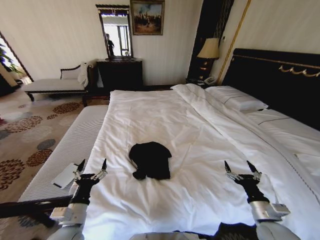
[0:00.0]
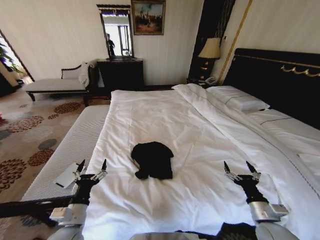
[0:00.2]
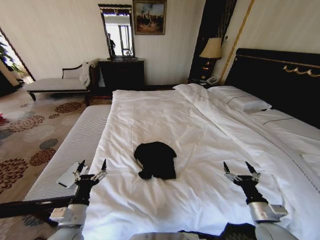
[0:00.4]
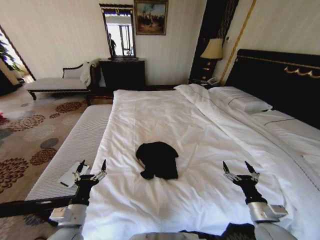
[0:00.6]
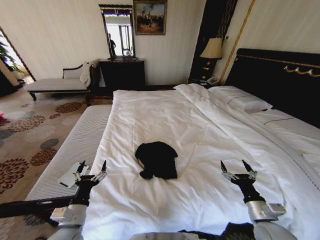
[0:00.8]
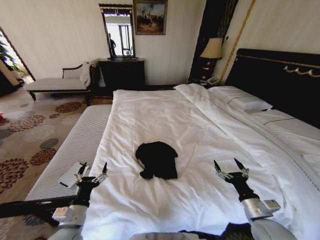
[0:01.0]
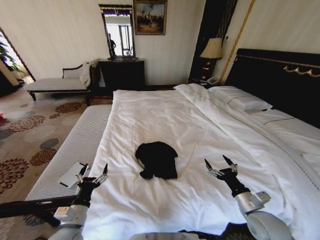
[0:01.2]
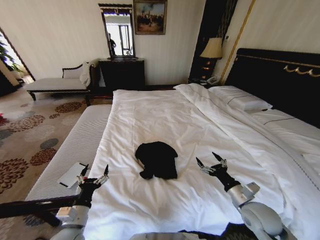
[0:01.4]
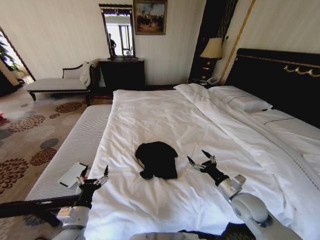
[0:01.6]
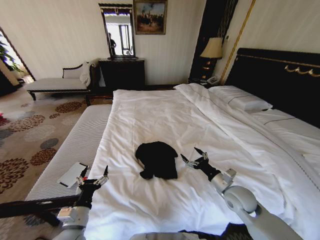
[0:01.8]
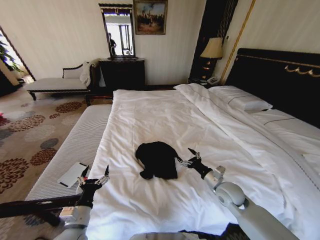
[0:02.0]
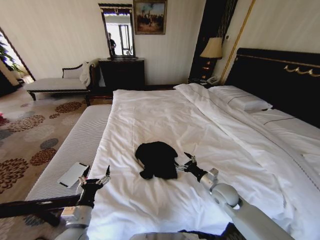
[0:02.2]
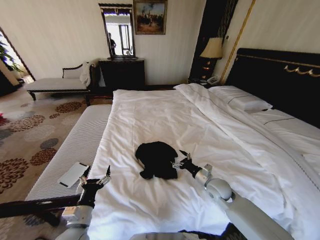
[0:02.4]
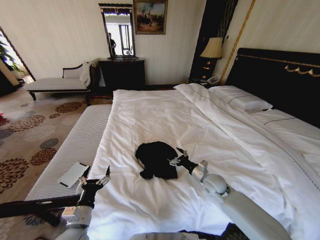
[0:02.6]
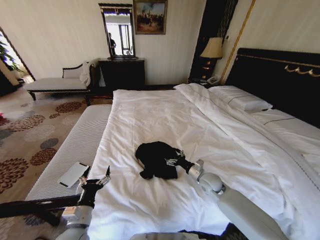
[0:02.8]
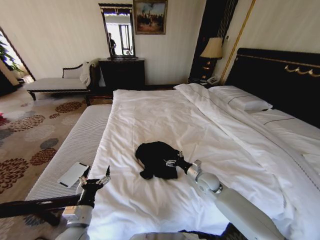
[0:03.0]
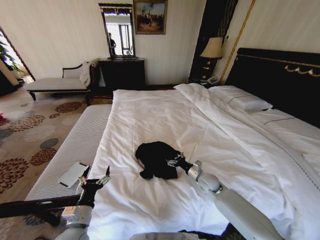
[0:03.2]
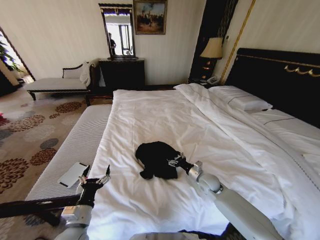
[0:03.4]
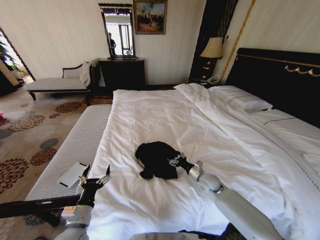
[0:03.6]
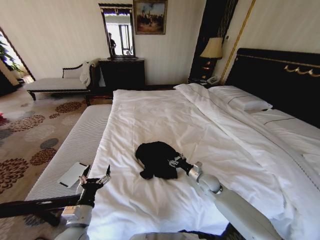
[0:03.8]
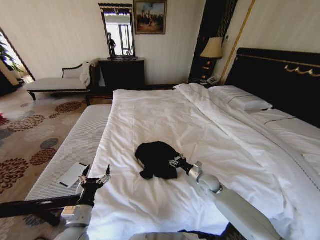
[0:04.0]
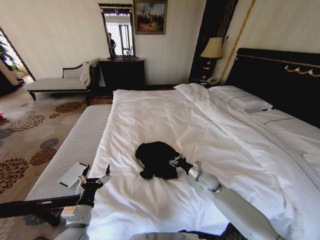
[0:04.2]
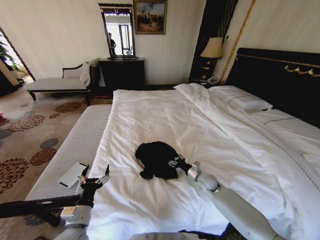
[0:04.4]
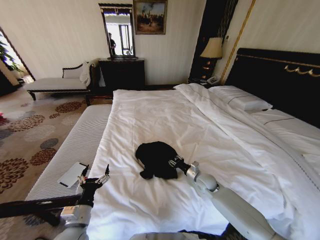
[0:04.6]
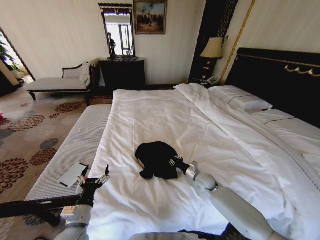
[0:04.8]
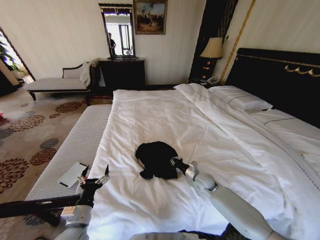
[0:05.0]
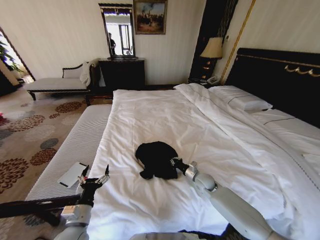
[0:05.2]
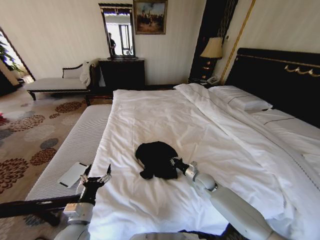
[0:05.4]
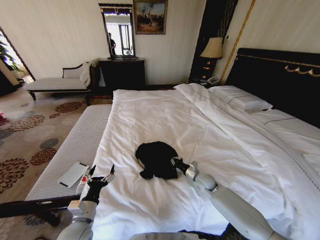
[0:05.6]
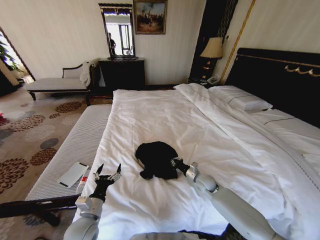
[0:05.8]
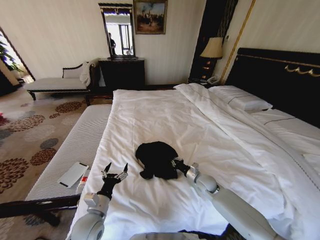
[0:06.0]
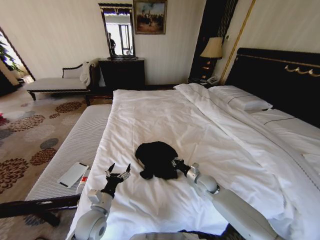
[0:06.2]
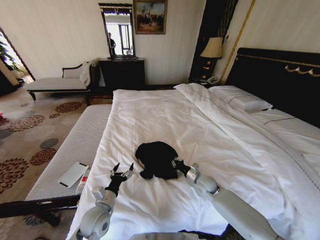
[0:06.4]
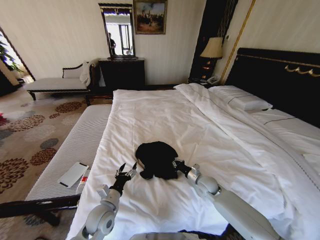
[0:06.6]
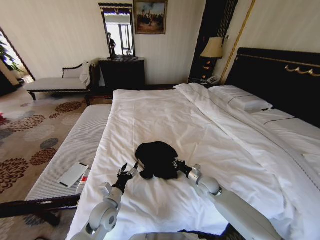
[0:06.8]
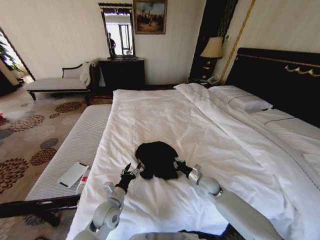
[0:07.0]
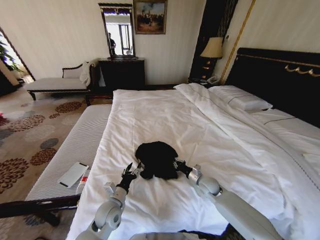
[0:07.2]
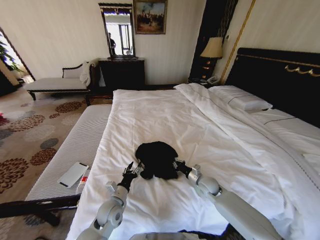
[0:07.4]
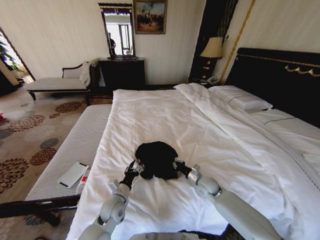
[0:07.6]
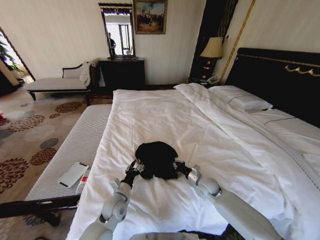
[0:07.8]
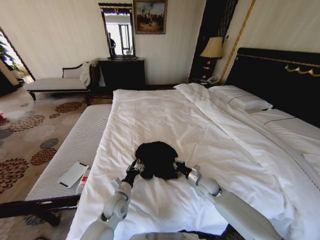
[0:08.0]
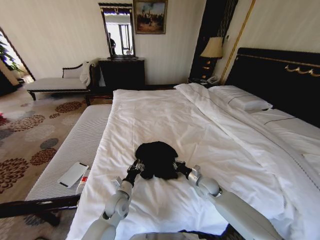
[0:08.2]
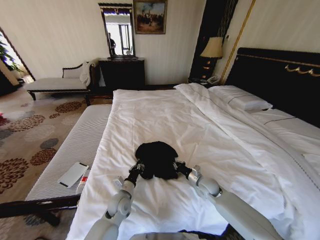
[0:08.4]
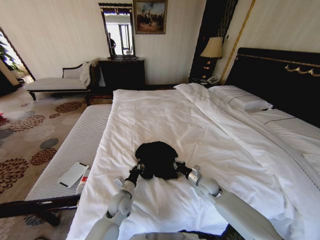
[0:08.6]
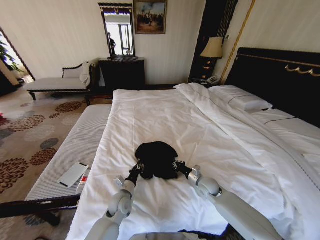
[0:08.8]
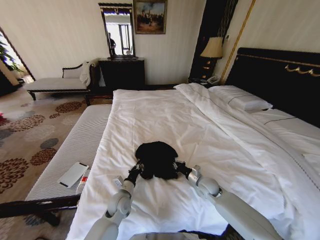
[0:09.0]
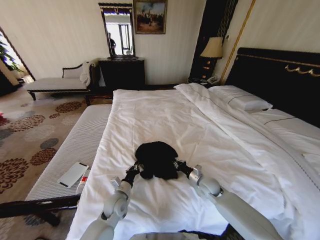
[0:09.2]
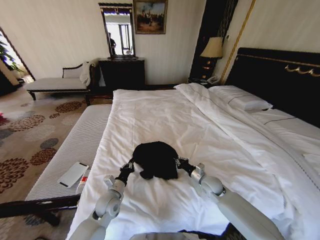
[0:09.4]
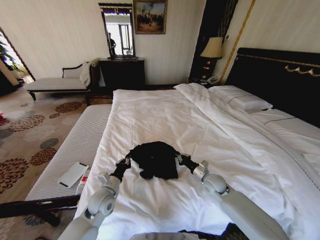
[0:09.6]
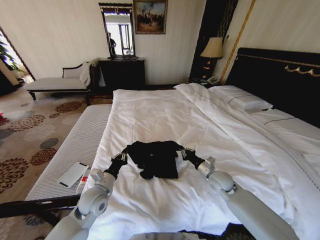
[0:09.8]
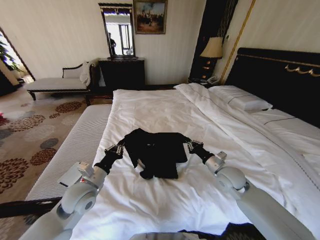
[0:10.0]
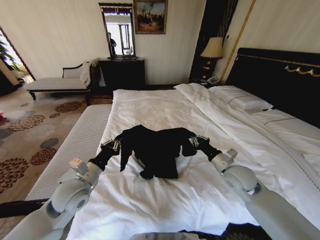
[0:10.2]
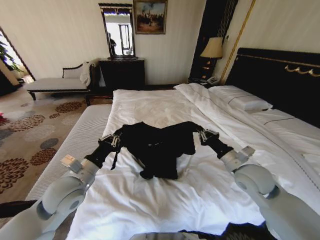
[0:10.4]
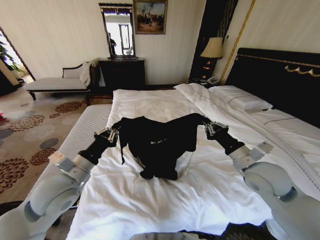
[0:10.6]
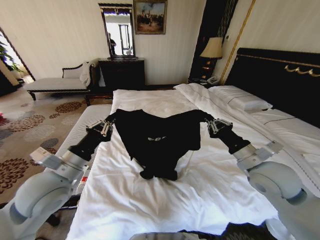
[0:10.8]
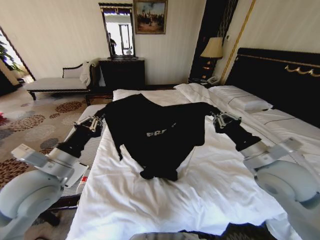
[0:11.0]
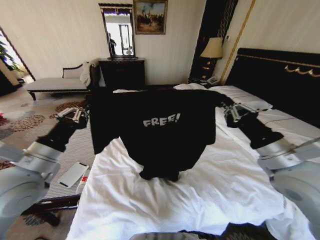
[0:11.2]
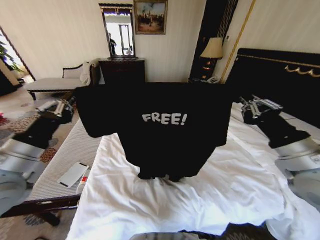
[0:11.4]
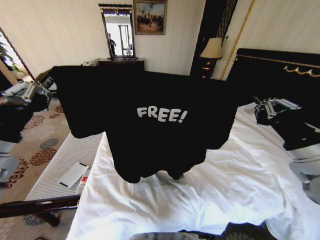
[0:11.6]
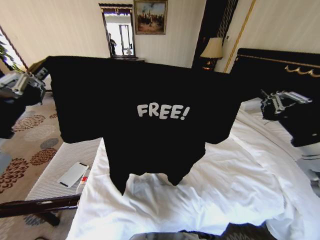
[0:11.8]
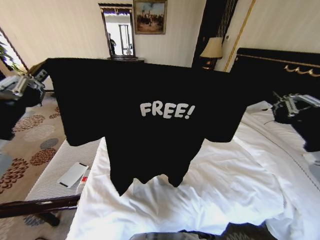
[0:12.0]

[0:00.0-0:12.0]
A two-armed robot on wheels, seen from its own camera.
Task of the whole recording: Fold the clothes on the bed.
0:00.0 to 0:01.6: The right gripper moves forward and to the left, some 10 cm.
0:01.6 to 0:03.0: The right gripper travels forward, to the left and downward by about 15 cm.
0:03.0 to 0:04.4: The grippers make only small movements.
0:04.4 to 0:06.0: The left gripper ends up about 5 cm from where it was, while the right gripper closes.
0:06.0 to 0:07.6: The left gripper travels forward and to the right by about 10 cm, and closes its fingers.
0:07.6 to 0:09.0: The left gripper closes.
0:09.0 to 0:10.4: The left gripper travels upward and to the left by roughly 25 cm; the right gripper travels upward by about 20 cm.
0:10.4 to 0:12.0: The right gripper travels upward and backward by some 20 cm. Meanwhile the left gripper travels upward and to the left by approximately 20 cm.

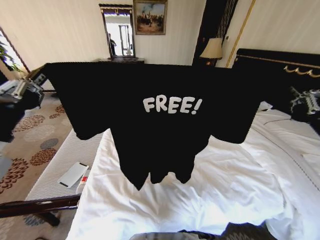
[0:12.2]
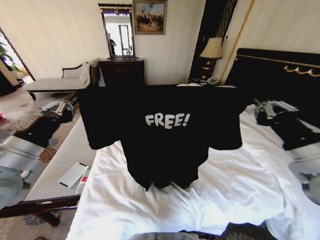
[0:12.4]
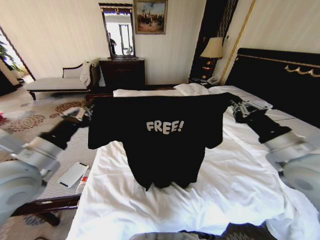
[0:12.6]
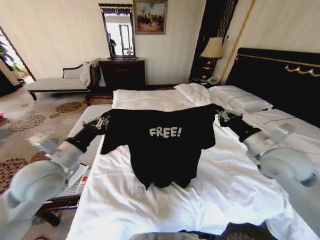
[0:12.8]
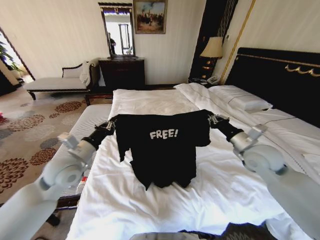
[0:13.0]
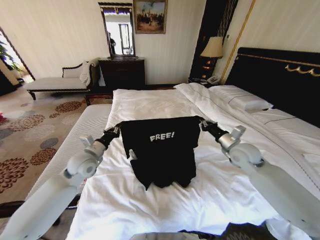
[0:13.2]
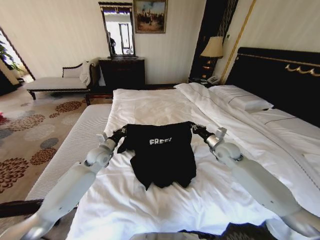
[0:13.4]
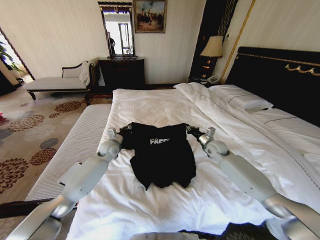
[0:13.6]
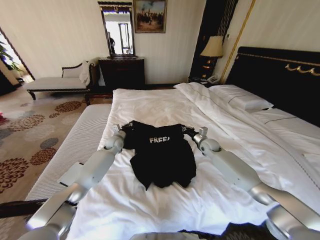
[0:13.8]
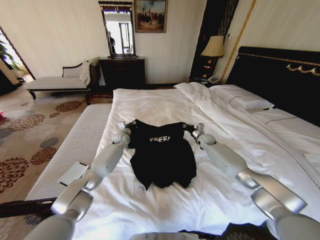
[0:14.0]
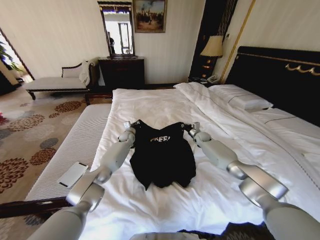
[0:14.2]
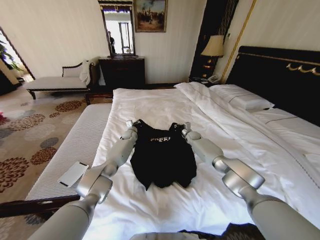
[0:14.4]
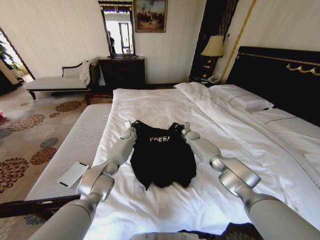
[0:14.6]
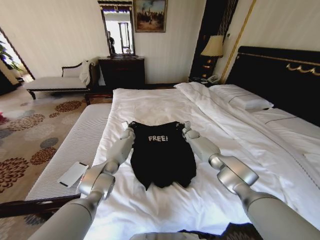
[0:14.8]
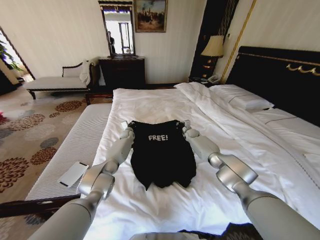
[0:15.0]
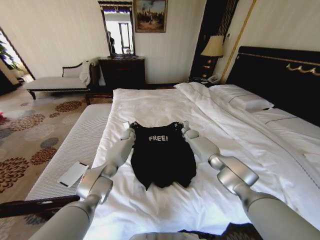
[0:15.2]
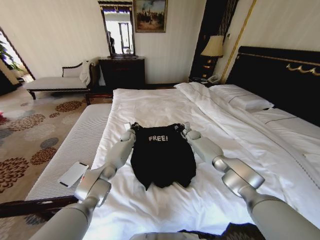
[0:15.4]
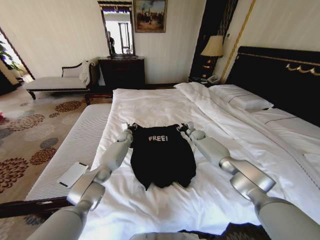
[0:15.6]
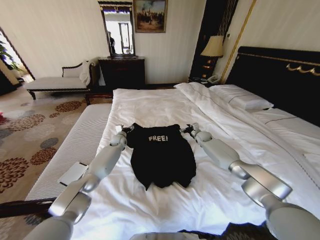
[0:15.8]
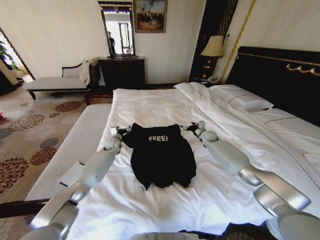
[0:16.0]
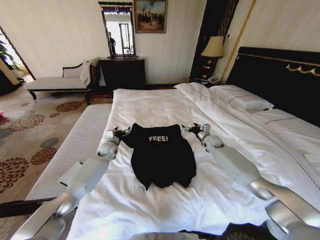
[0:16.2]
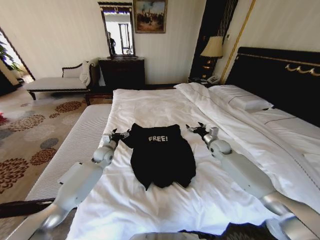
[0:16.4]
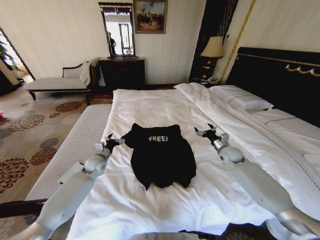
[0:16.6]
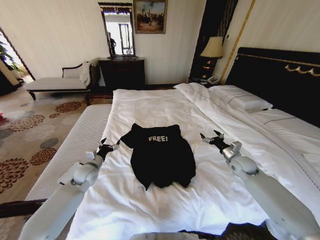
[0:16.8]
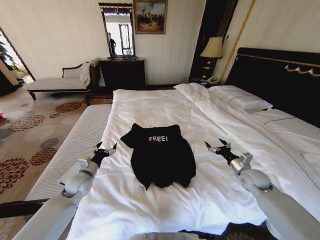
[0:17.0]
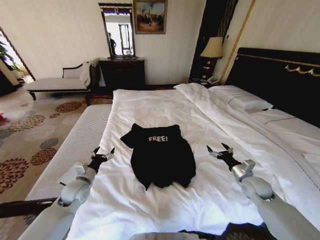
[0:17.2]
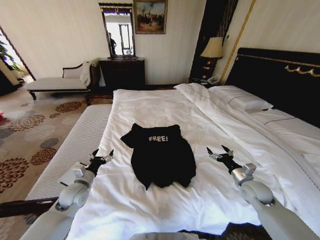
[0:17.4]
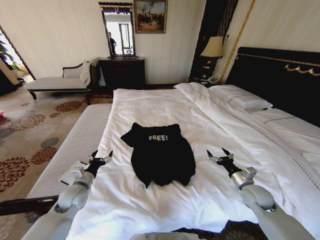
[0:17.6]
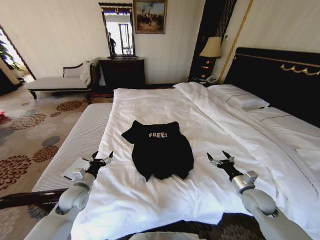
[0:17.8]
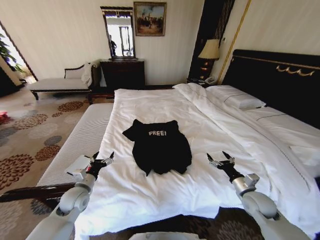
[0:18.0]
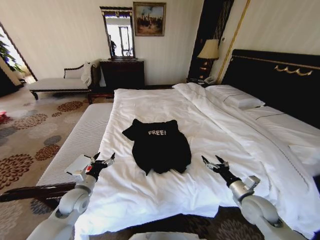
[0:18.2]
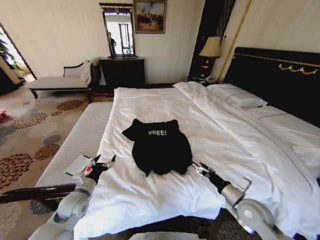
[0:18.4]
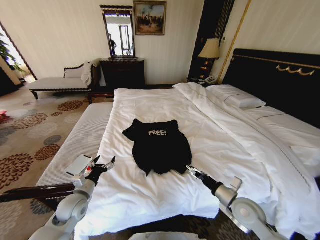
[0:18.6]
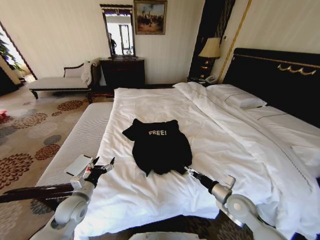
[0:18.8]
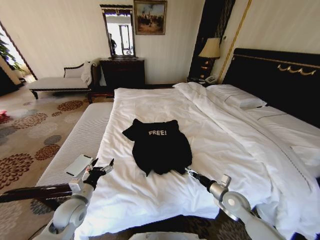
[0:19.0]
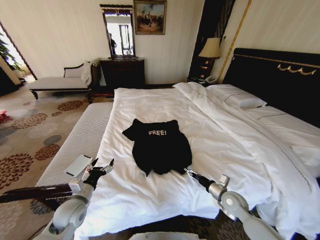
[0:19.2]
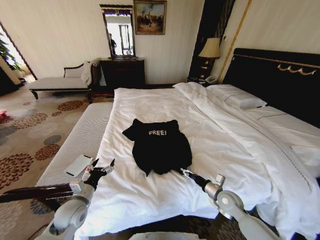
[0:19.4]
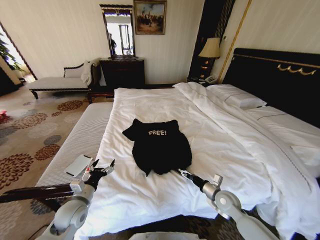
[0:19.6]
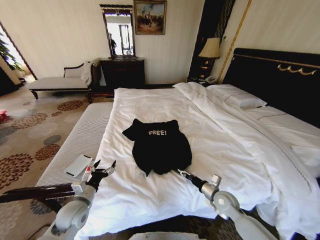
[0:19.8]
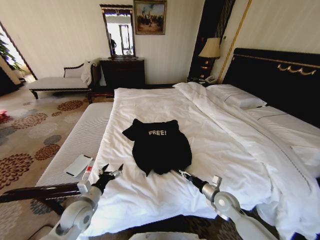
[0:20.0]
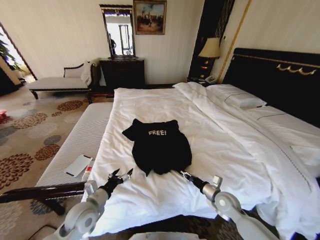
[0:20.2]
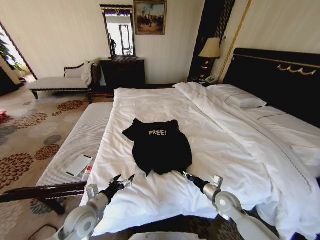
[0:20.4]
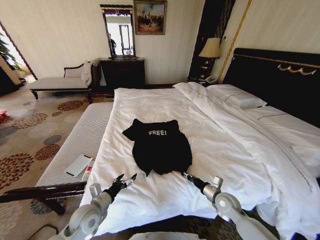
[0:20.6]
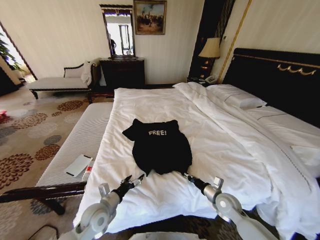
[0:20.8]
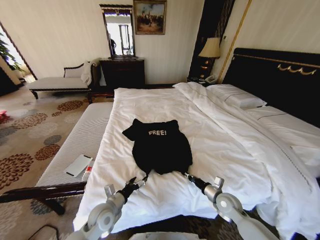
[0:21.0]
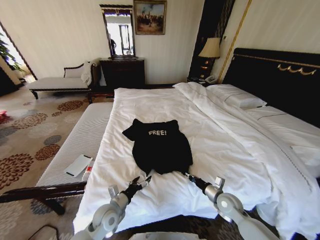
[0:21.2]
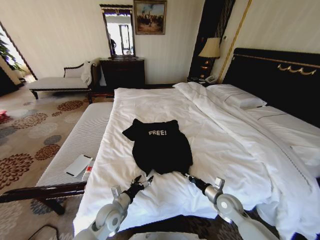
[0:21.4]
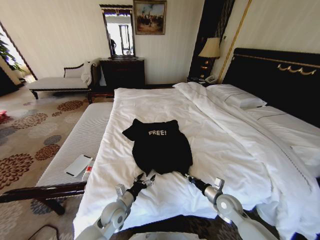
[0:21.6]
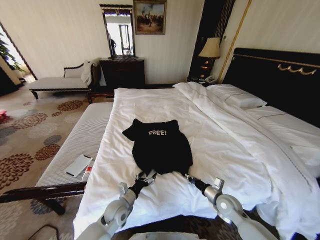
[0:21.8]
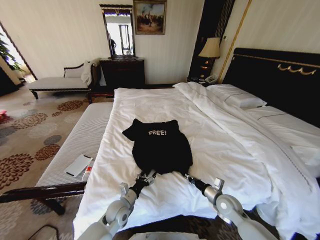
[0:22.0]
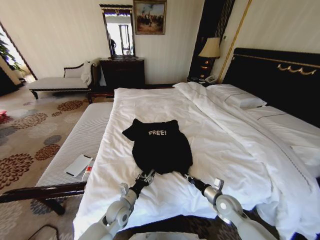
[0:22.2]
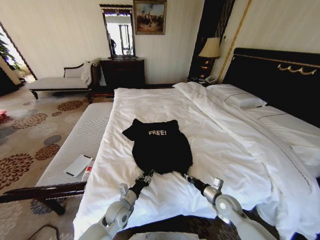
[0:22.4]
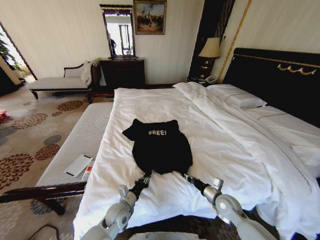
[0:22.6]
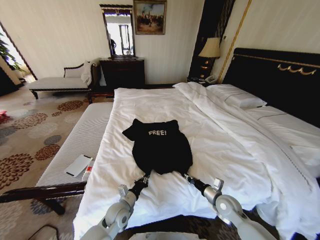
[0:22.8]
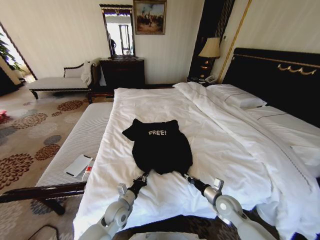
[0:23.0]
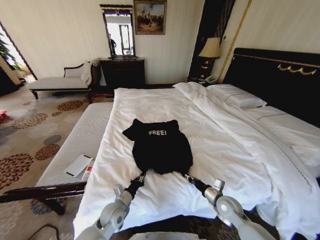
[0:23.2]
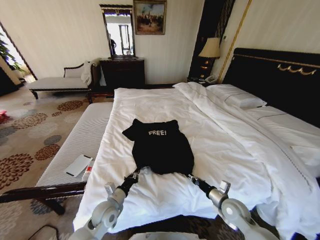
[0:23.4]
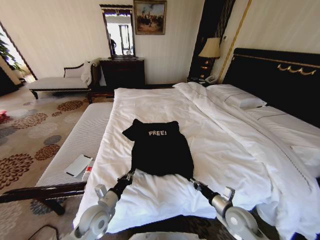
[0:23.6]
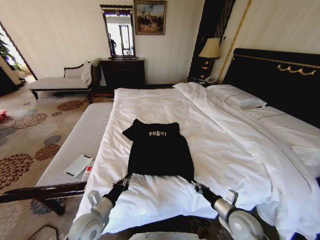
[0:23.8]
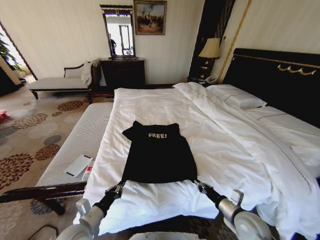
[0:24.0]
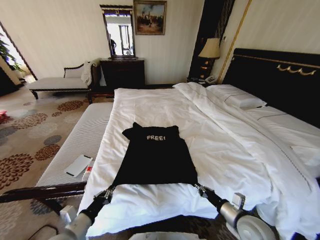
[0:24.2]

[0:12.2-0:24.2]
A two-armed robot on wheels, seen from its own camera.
Task of the whole recording: Fold the clothes on the bed.
0:12.2 to 0:13.8: The grippers both shift forward and downward by approximately 50 cm.
0:13.8 to 0:15.2: The right gripper is displaced forward and to the left by roughly 15 cm. The left gripper travels forward and to the right by roughly 10 cm.
0:15.2 to 0:16.6: The left gripper shifts some 25 cm backward and to the left, and opens up. The right gripper moves backward and to the right, approximately 25 cm, and opens.
0:16.6 to 0:18.2: The two grippers go about 20 cm backward.
0:18.2 to 0:19.8: The right gripper is displaced to the left and downward by approximately 10 cm.
0:19.8 to 0:21.2: The right gripper closes up. The left gripper travels to the right by approximately 10 cm.
0:21.2 to 0:22.6: The left gripper closes.
0:22.6 to 0:24.2: The right gripper shifts some 10 cm backward and upward. Meanwhile the left gripper is displaced to the left, backward and upward by some 20 cm.
